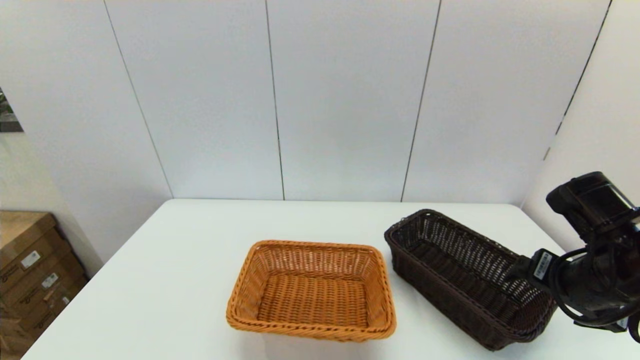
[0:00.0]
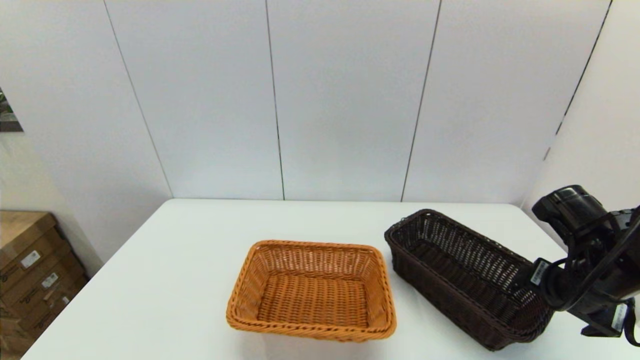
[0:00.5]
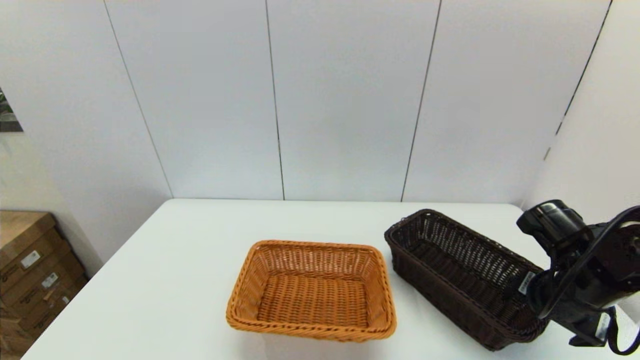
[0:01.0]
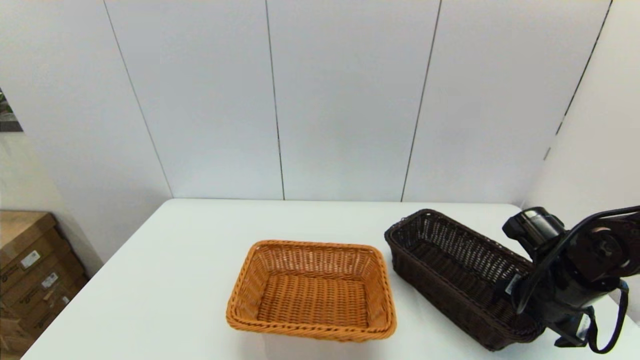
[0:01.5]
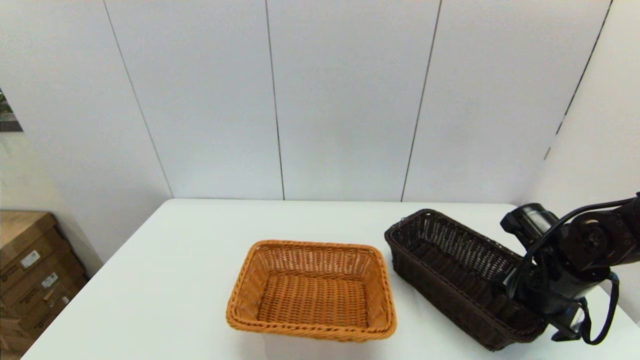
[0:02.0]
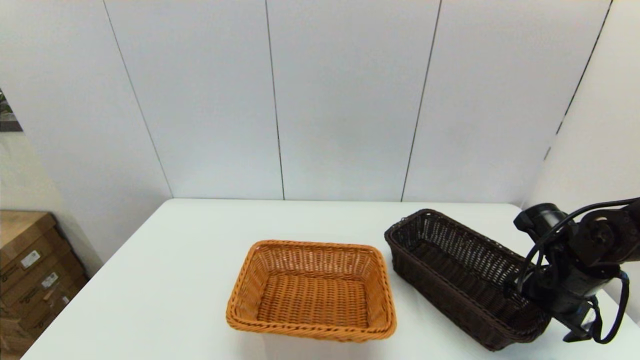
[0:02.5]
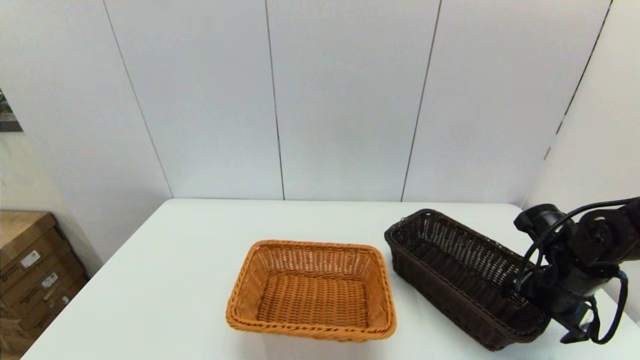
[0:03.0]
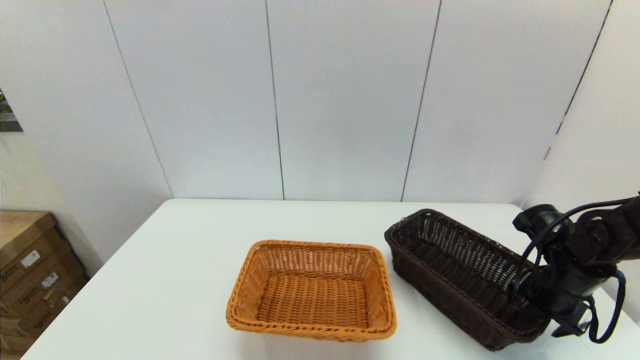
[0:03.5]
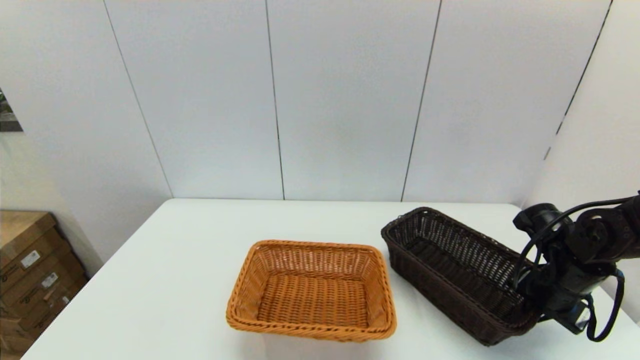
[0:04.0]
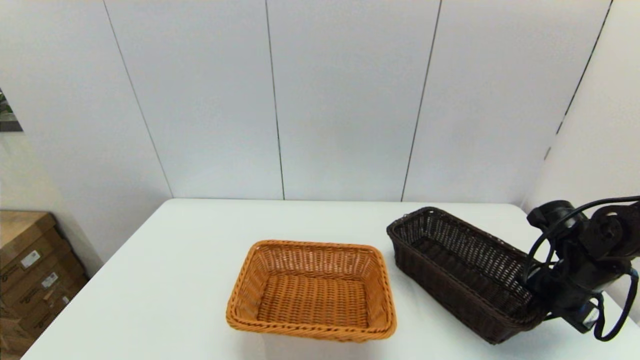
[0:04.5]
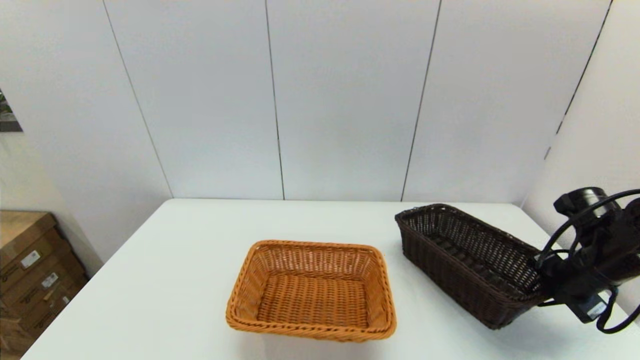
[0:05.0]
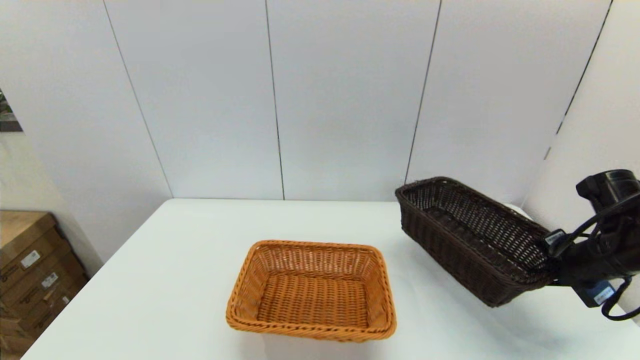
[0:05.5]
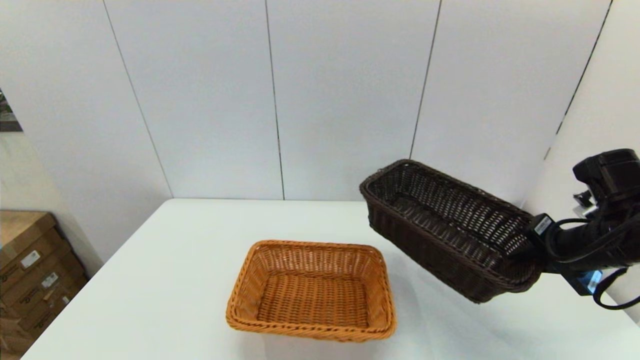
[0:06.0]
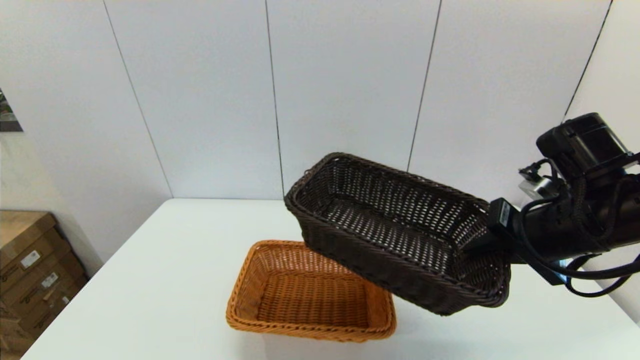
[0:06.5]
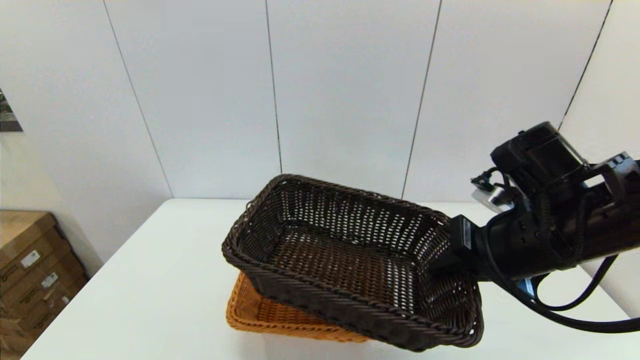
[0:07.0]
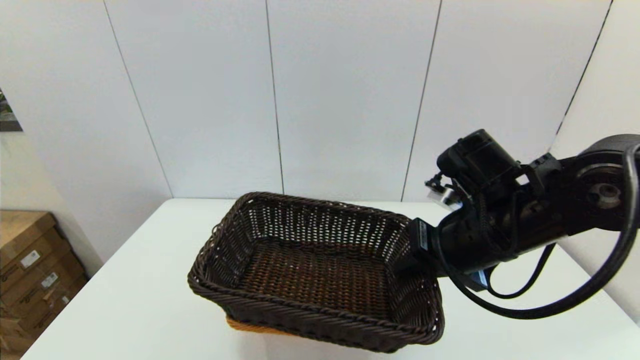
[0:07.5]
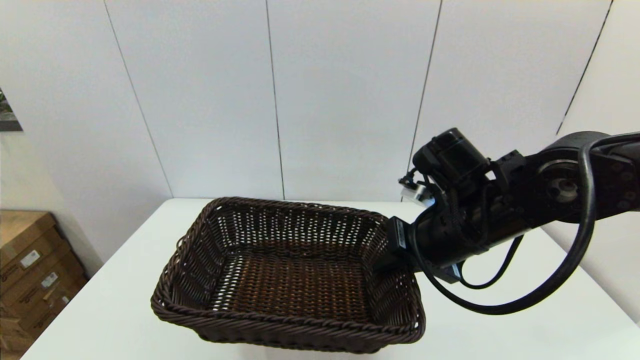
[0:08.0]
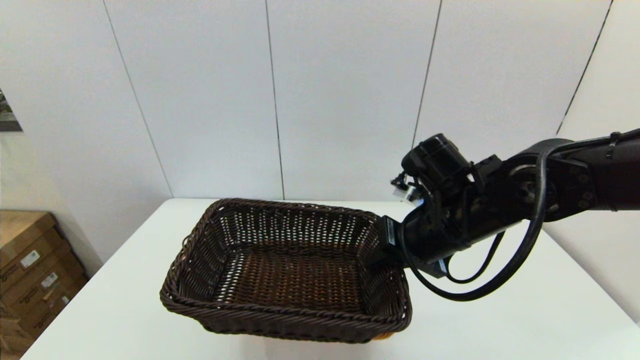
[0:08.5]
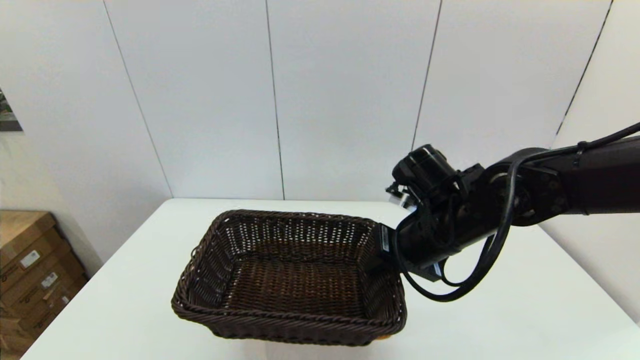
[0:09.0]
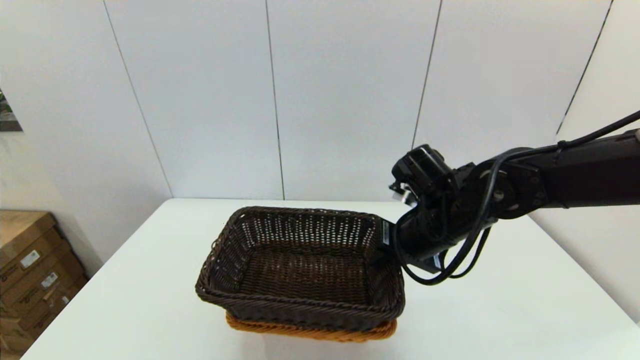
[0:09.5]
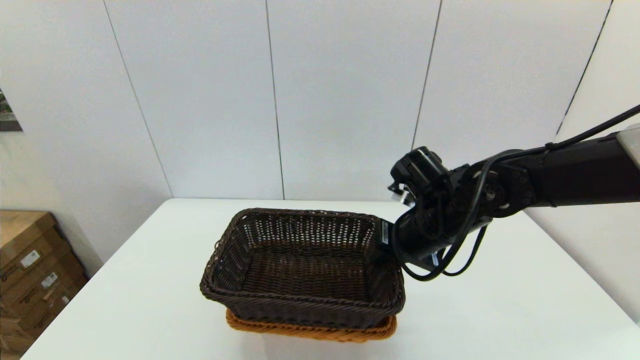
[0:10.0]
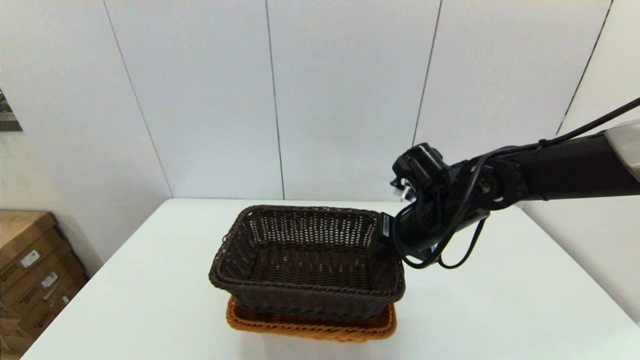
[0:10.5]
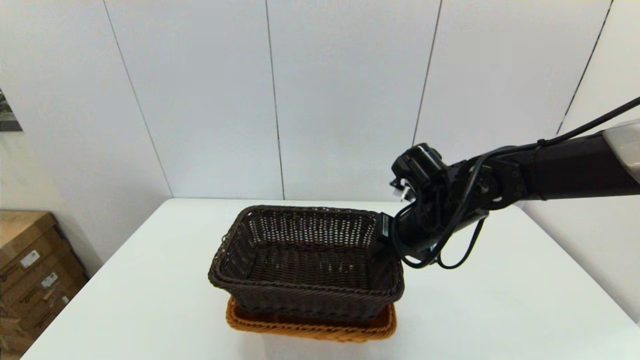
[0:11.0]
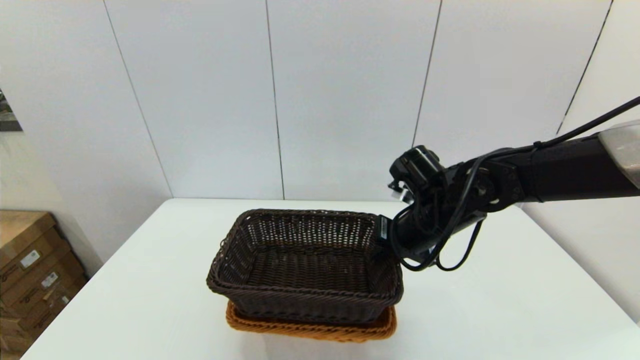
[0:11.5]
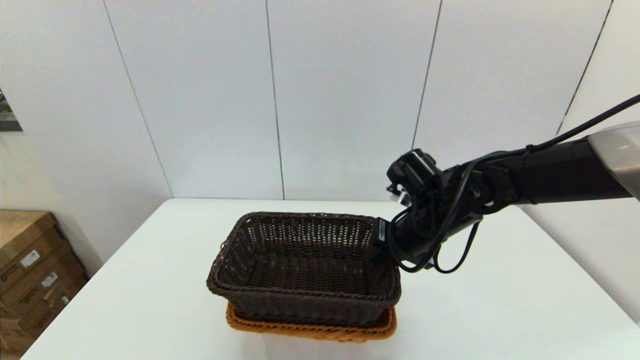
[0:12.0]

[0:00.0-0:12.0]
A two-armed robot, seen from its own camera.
Task of the whole recording: stack a basket on top of another basket.
Step, 0:00.0 to 0:04.5: Grasp the dark basket with the right gripper.
0:00.0 to 0:02.0: The right gripper is displaced downward and forward by some 10 cm.
0:02.0 to 0:04.0: The right gripper closes up.
0:04.0 to 0:06.0: The right gripper goes about 10 cm upward.
0:06.0 to 0:08.0: The right gripper travels to the left by approximately 20 cm.
0:08.0 to 0:10.0: The right gripper is displaced forward by some 5 cm.
0:10.0 to 0:12.0: The grippers make only small movements.

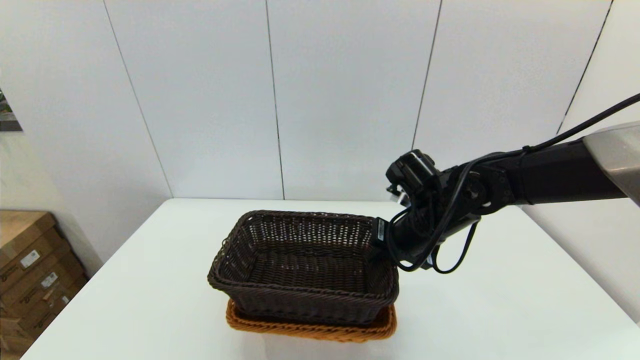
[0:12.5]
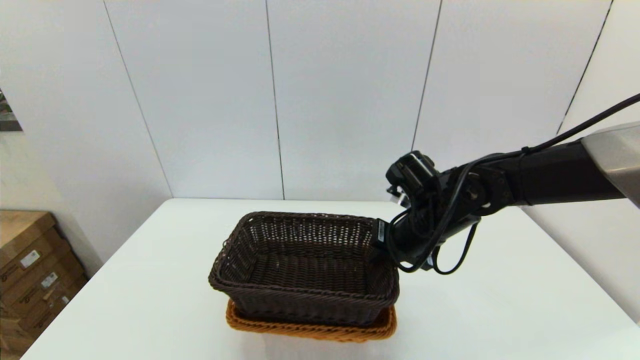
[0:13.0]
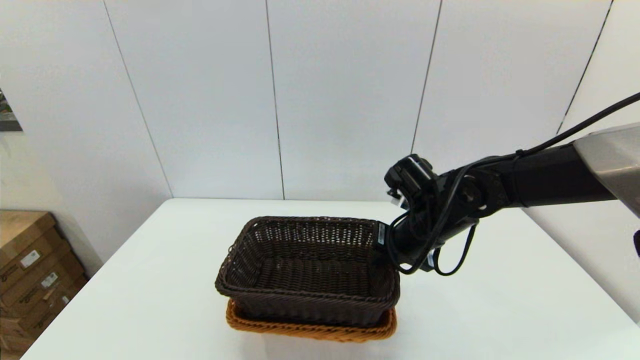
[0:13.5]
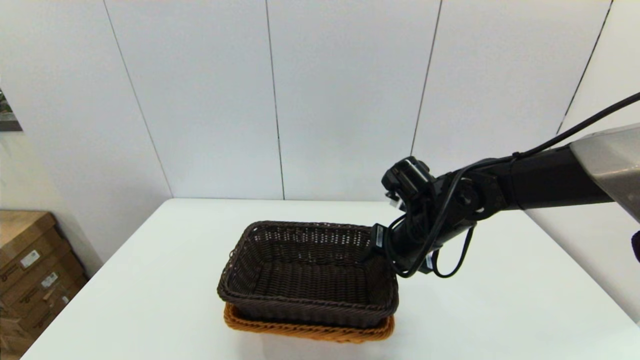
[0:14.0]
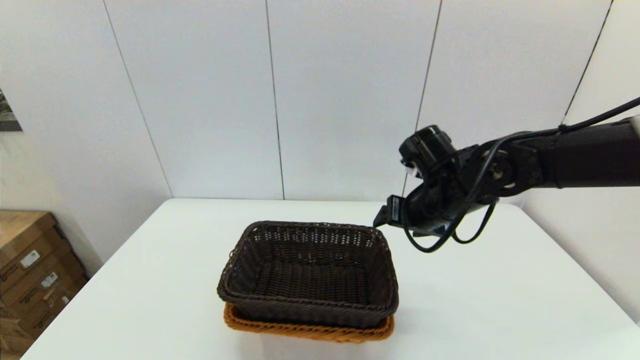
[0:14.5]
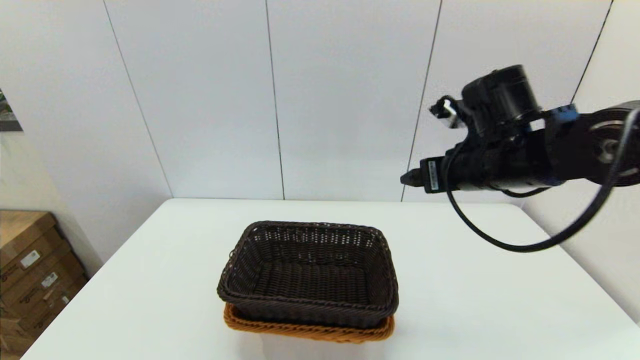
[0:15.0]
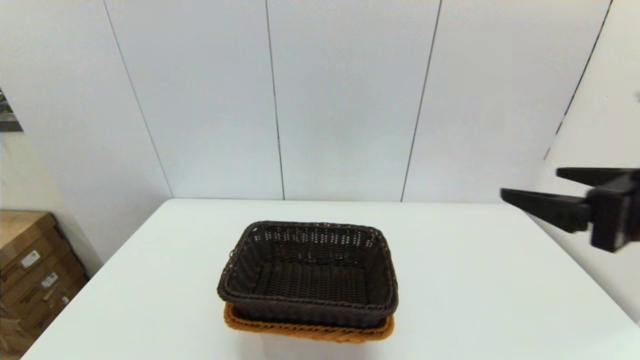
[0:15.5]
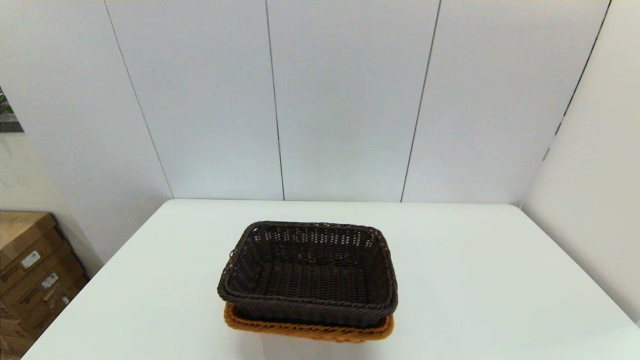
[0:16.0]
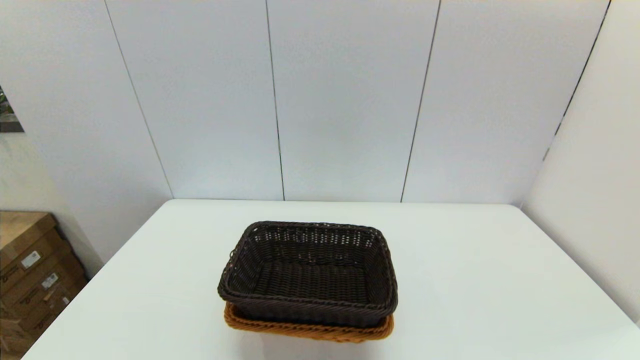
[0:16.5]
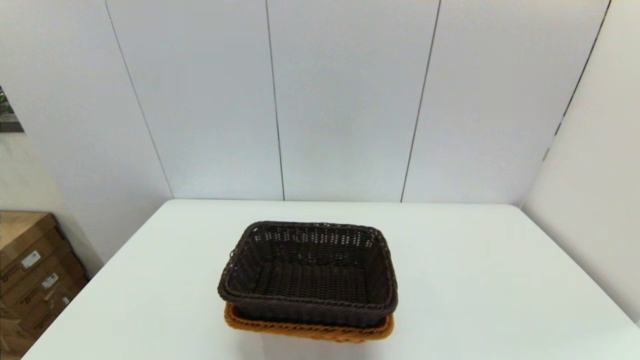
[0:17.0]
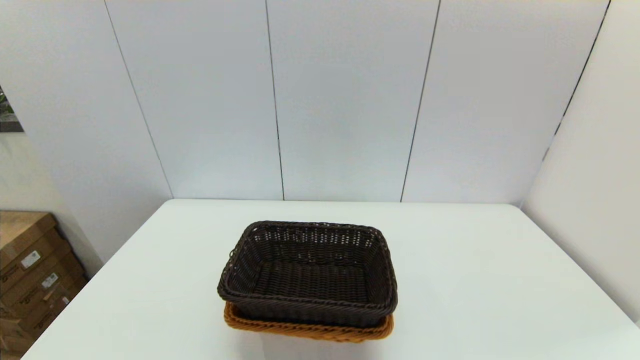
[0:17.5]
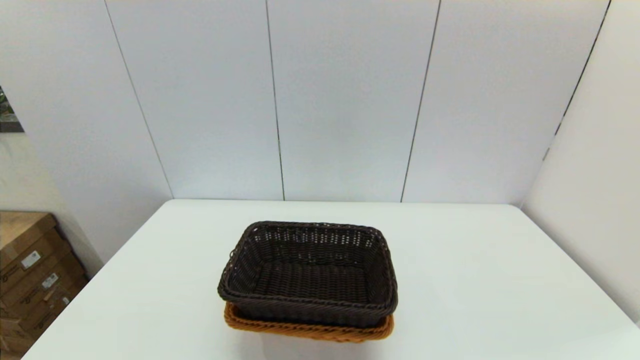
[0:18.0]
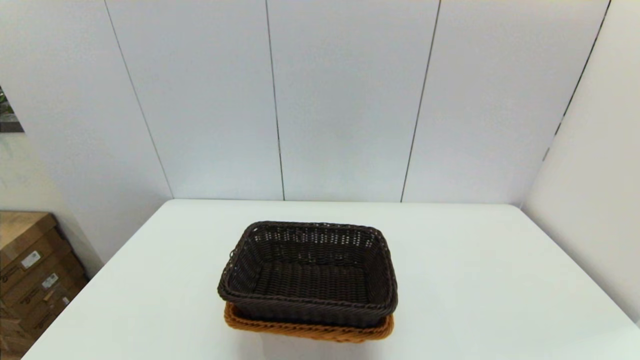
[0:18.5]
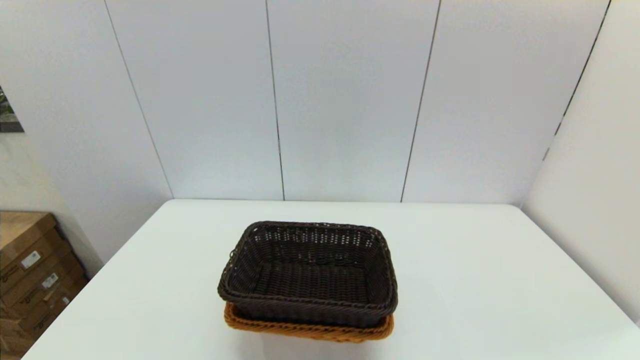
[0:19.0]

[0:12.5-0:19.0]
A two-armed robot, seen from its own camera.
Task of the whole recording: stack a basket on top of another basket.
0:12.5 to 0:14.5: The right gripper opens up.
0:14.5 to 0:17.0: The right gripper travels backward and to the right by roughly 40 cm.
0:17.0 to 0:19.0: The two grippers keep their place.
